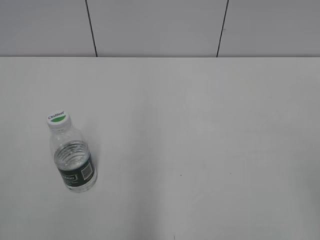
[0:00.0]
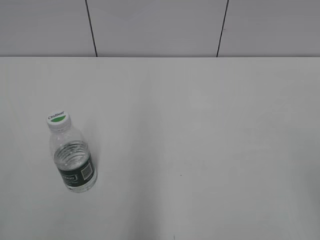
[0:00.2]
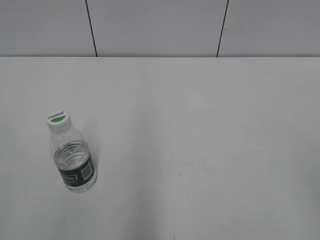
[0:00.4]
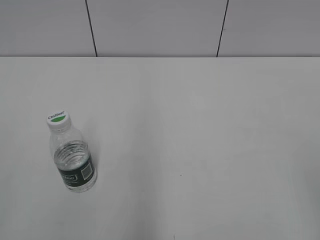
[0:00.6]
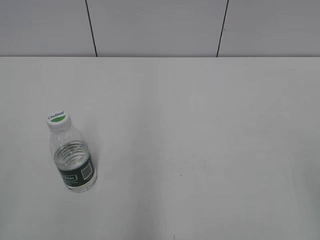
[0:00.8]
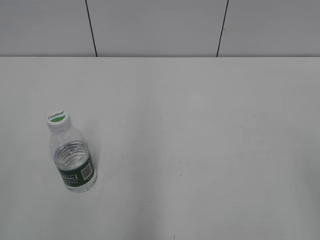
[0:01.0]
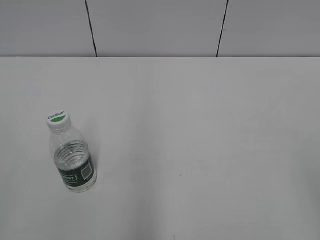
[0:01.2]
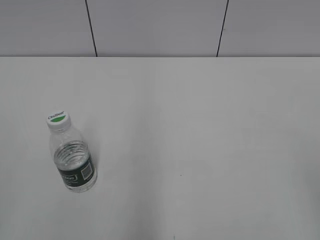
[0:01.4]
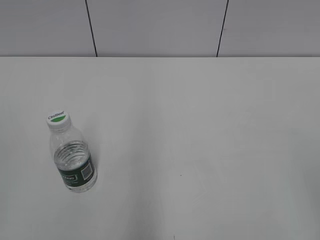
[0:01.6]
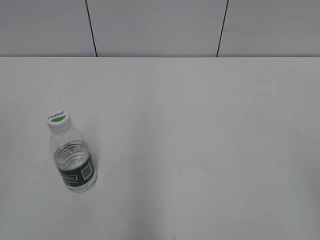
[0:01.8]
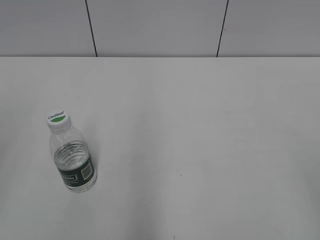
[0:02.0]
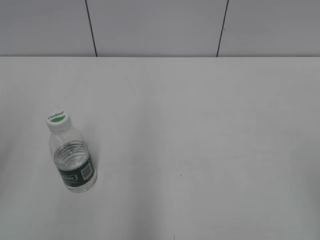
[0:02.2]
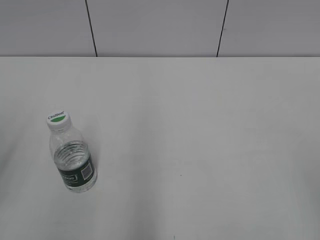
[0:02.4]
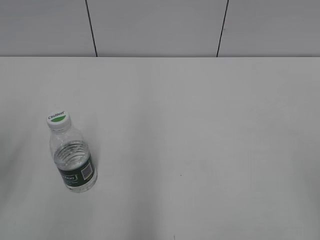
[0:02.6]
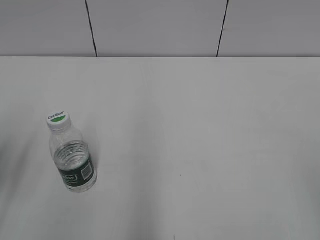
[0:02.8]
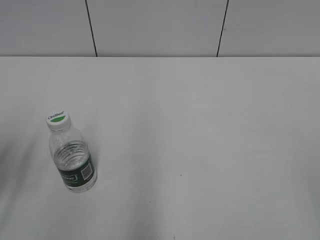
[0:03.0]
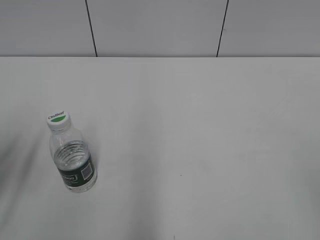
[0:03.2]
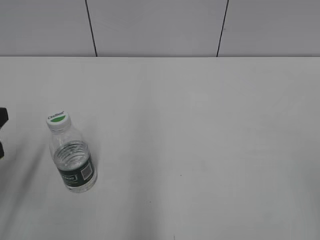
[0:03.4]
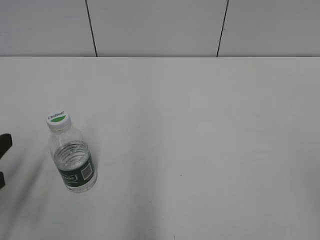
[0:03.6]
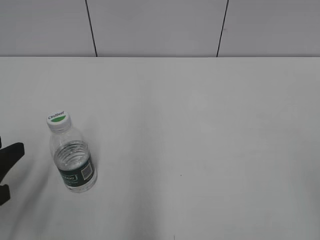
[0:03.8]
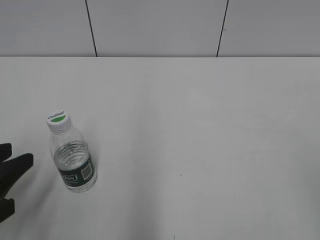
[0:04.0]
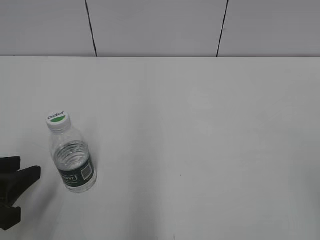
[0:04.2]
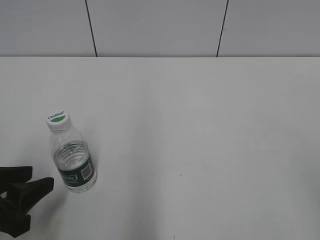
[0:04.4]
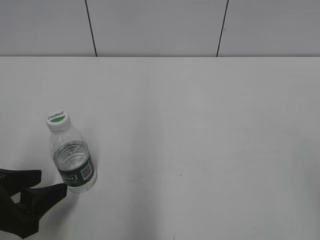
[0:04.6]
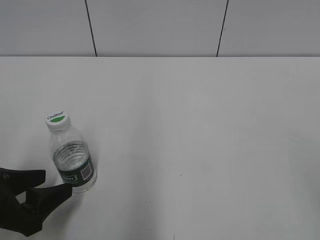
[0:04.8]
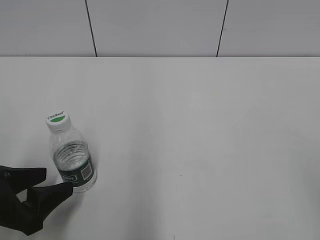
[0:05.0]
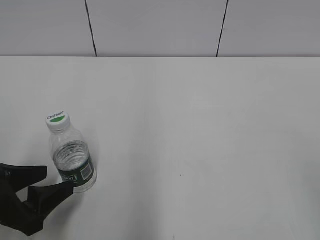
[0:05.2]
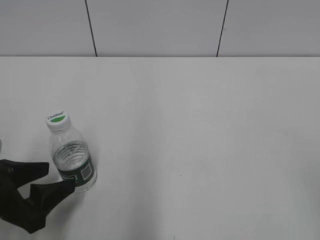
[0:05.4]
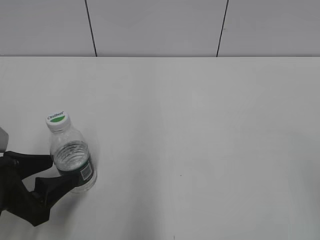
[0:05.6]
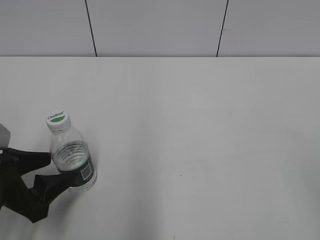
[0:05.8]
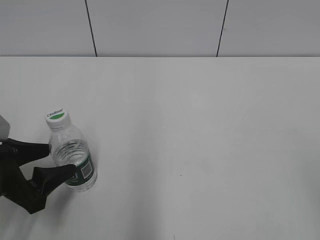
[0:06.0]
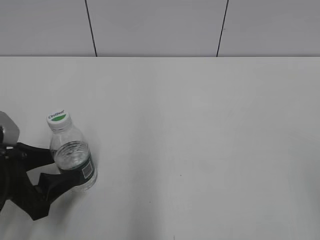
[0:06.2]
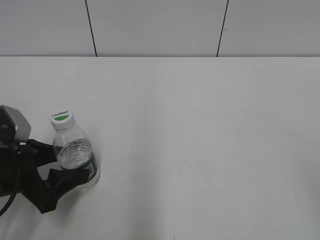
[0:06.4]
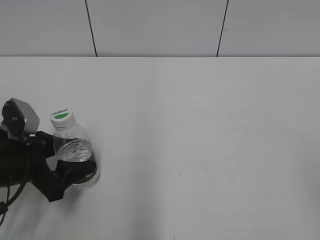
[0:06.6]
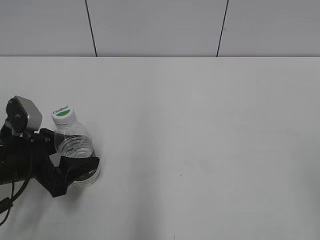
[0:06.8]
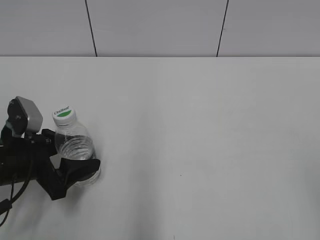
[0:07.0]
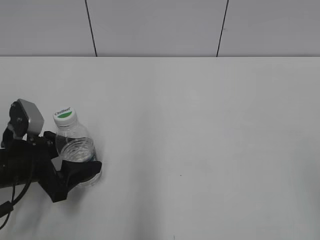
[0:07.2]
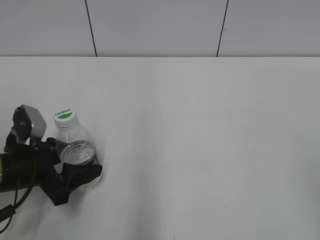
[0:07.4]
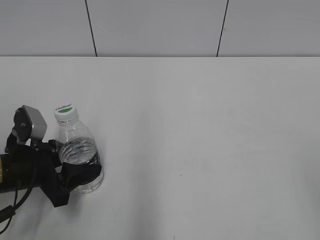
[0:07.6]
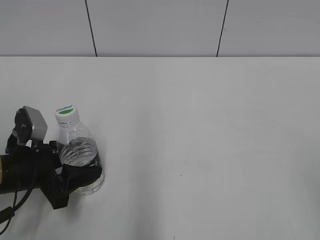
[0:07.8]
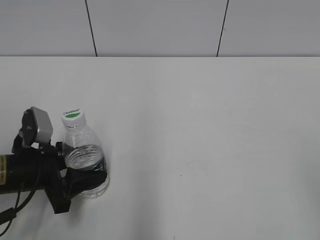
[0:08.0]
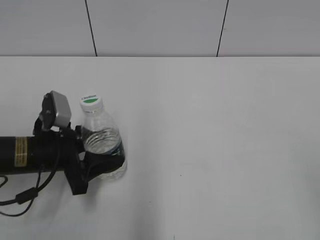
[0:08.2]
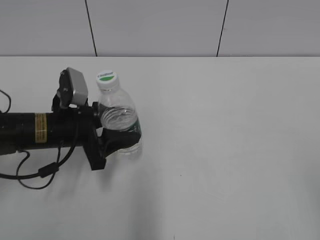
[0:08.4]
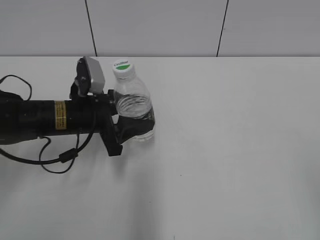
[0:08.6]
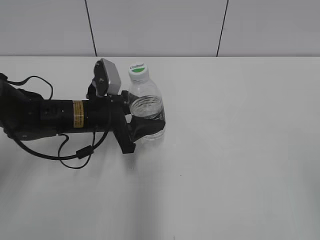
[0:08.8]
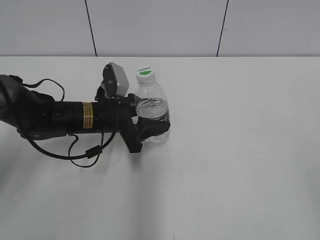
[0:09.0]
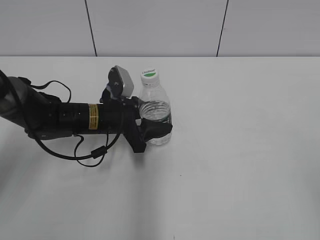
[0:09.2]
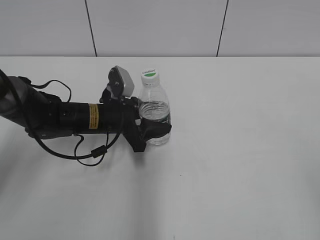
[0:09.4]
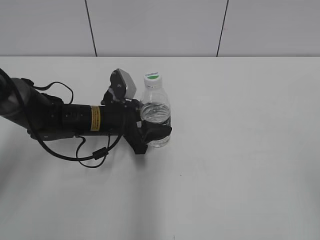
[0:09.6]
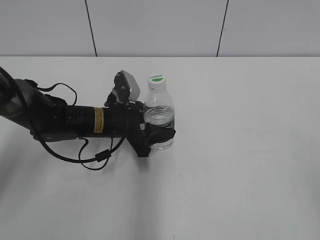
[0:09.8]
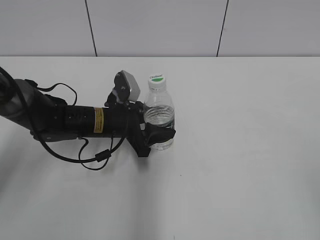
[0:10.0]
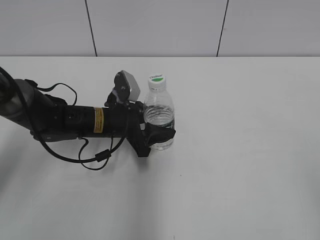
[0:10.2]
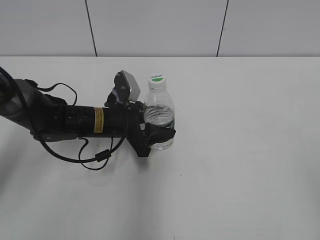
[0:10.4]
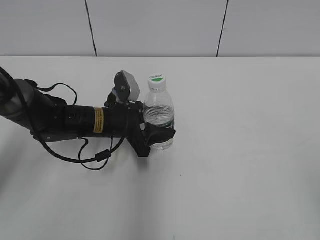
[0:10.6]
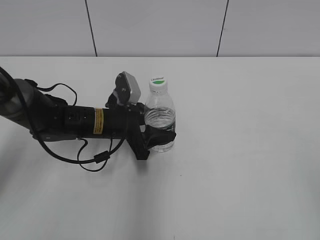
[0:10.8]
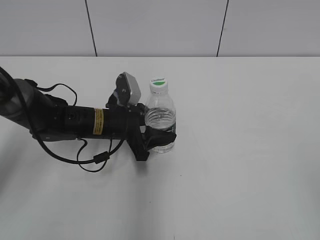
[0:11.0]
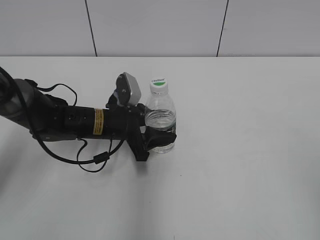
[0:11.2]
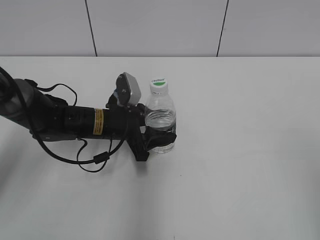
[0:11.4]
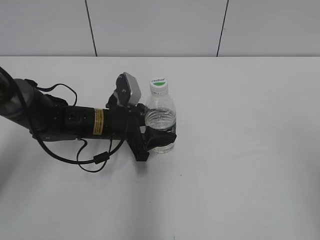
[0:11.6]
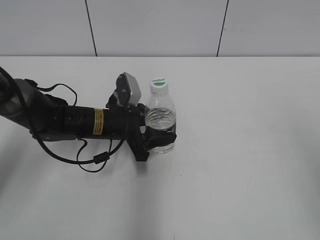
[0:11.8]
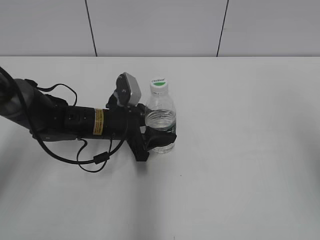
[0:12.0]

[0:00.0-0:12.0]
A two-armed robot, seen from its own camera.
Step, 0:00.0 to 0:07.8: Grasp the bottle and move it to the center of the table with the left gripper.
Step, 0:08.0 to 0:09.8: Lift the bottle and move it to the center of the table with the left gripper.
0:01.6 to 0:03.0: The left gripper moves forward and downward, about 20 cm.
0:03.0 to 0:04.4: The left gripper heads downward, covering about 5 cm.
0:04.4 to 0:06.0: The left gripper opens.
0:06.0 to 0:07.6: The left gripper moves roughly 5 cm, and closes its fingers.
0:07.6 to 0:09.0: The left gripper goes some 15 cm forward and to the right.
0:09.0 to 0:10.4: The grippers stay close to where they were, moving slightly.
0:10.4 to 0:12.0: The right gripper shifts approximately 15 cm forward and upward.

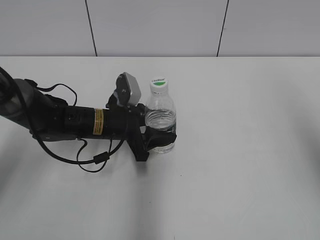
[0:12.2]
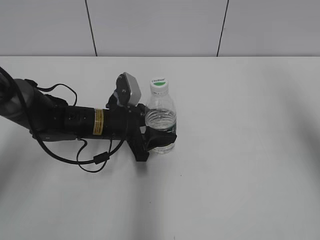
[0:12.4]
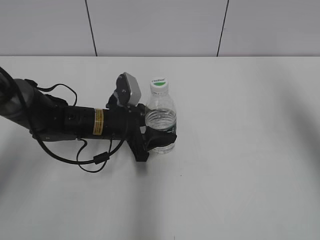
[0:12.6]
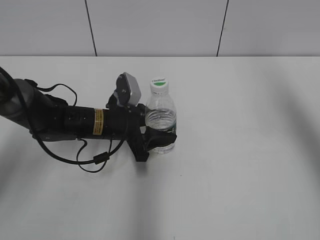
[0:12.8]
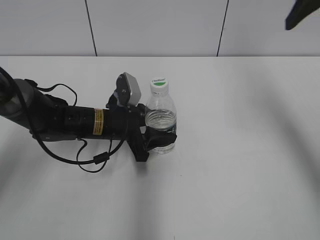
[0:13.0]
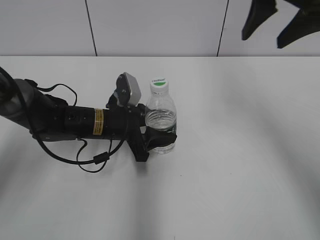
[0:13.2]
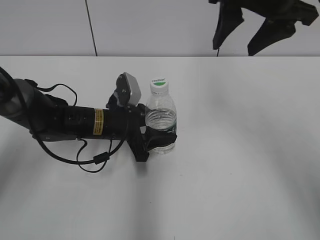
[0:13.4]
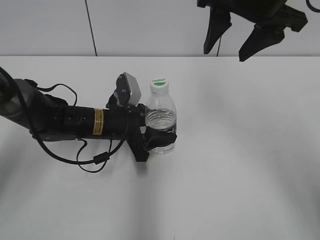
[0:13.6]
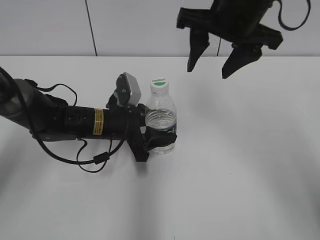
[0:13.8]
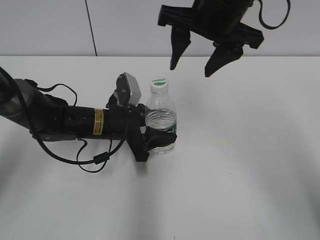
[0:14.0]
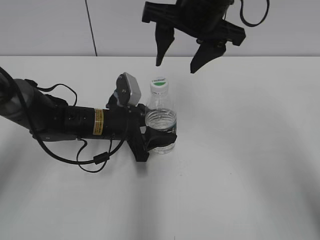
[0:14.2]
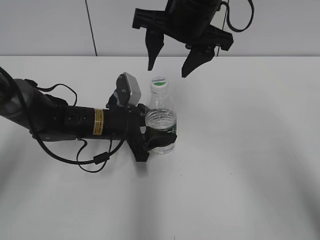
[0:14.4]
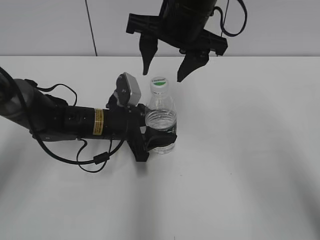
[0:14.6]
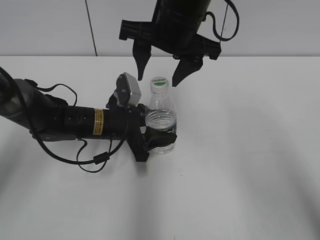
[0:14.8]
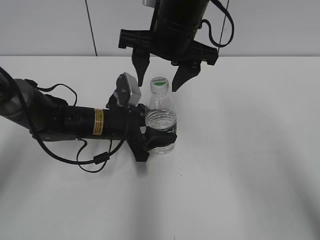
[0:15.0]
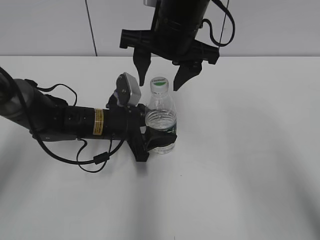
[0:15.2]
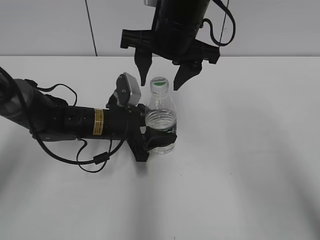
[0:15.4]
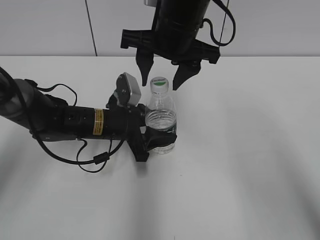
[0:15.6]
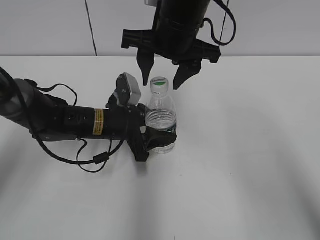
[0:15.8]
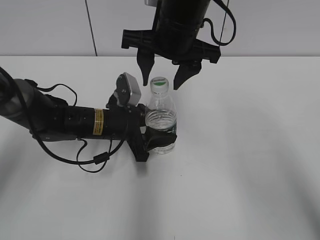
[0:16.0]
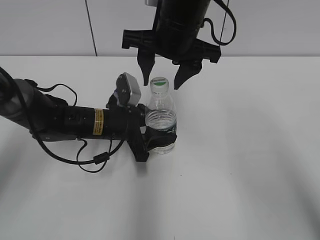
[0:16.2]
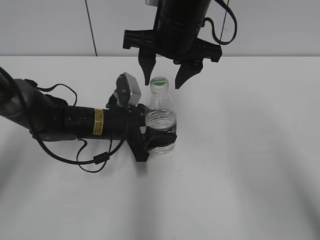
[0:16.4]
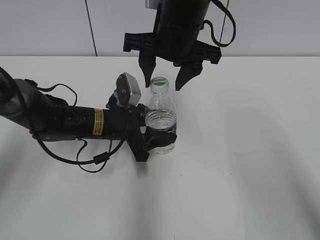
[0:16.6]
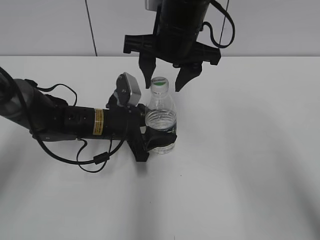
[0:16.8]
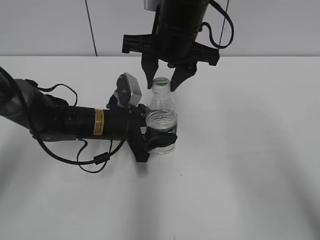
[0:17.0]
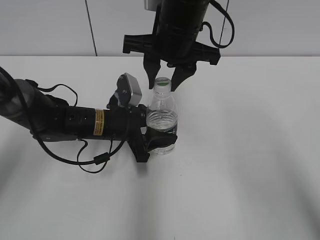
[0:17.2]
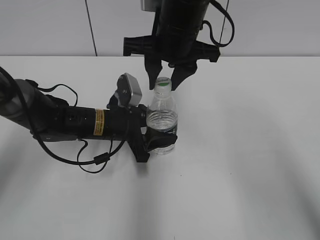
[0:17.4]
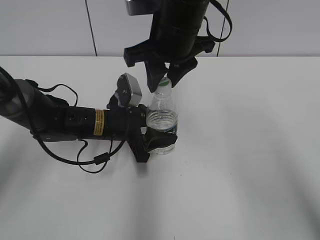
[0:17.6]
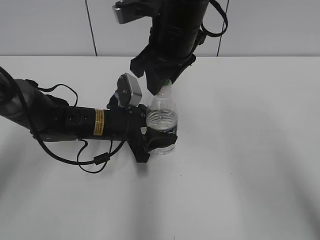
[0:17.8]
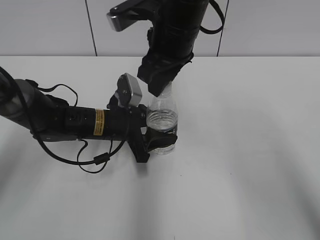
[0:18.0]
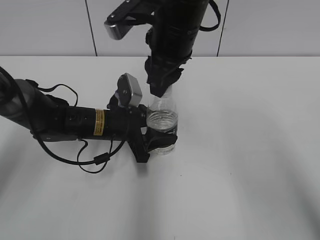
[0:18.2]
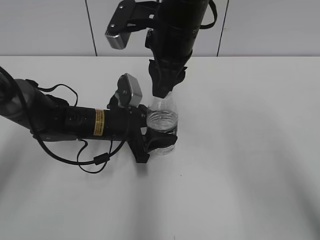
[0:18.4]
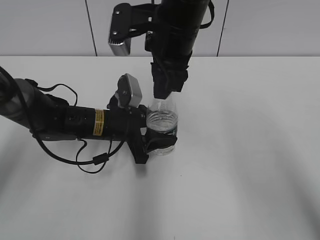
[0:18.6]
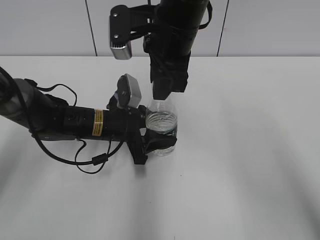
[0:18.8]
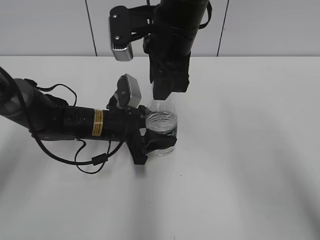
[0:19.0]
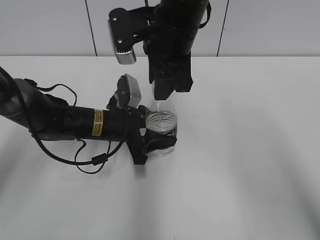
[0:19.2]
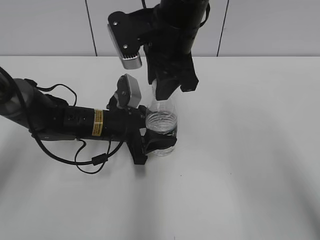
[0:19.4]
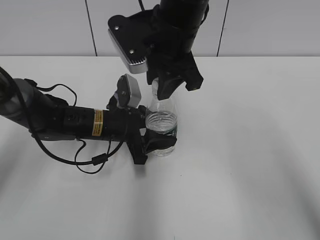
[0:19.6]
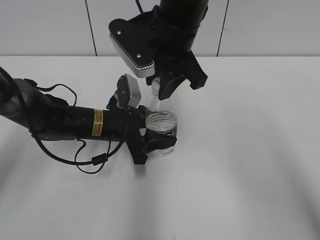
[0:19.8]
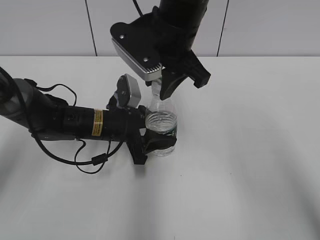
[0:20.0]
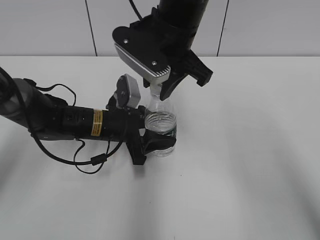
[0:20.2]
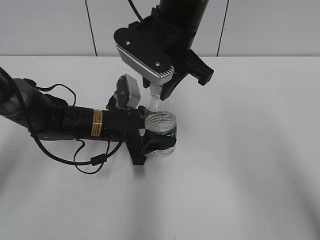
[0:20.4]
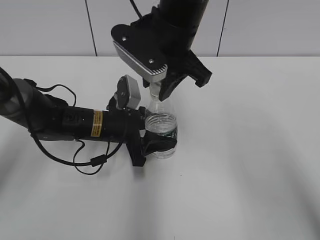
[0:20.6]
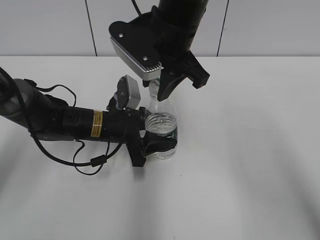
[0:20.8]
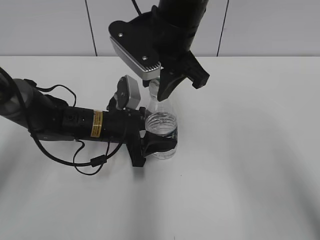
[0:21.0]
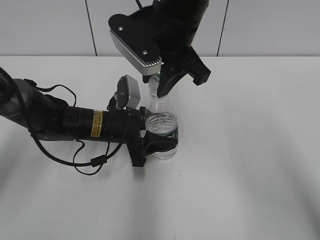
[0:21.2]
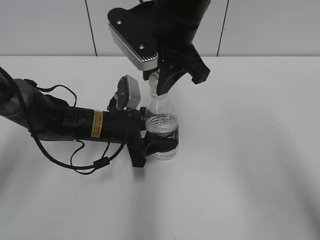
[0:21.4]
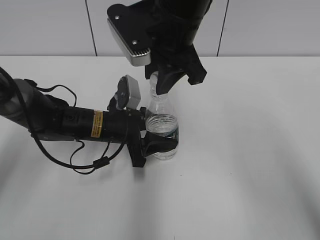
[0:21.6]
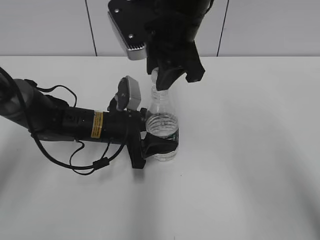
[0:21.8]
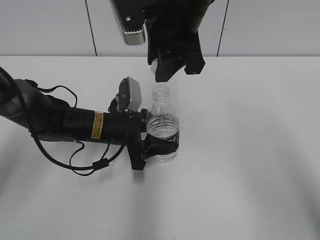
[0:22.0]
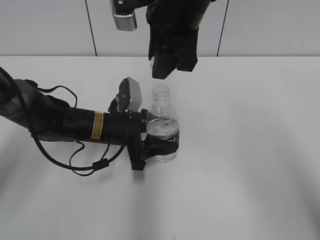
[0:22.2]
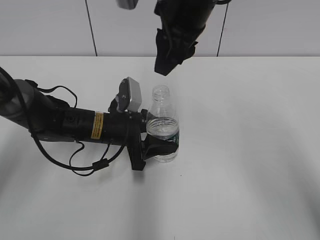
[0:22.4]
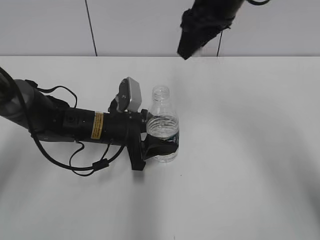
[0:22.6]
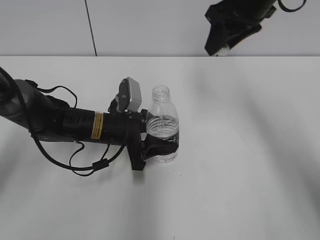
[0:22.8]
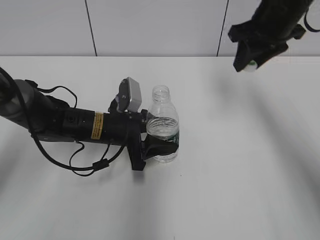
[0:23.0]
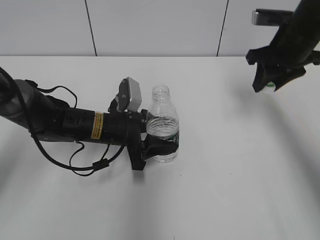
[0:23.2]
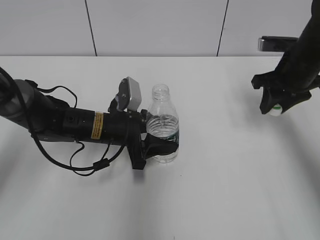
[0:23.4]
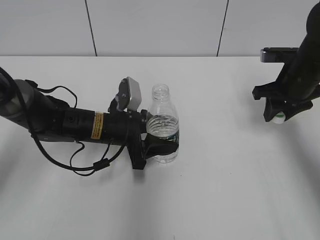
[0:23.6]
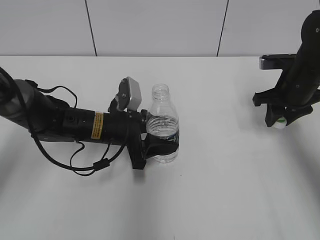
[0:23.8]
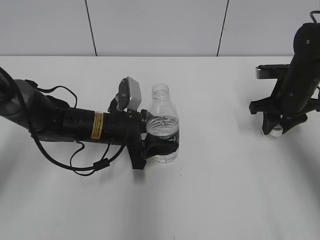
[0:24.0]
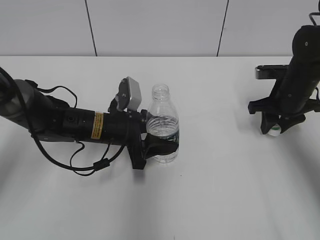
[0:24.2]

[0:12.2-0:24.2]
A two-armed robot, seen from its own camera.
Step, 0:12.2 to 0:22.0: Unscrew the bottle cap with the right gripper while holding the bottle with the left gripper.
0:12.2 to 0:13.8: The right gripper shifts roughly 25 cm to the left, forward and downward.
0:13.8 to 0:15.2: The right gripper goes roughly 10 cm to the left.
0:15.2 to 0:16.6: Both grippers stay put.
0:16.6 to 0:18.2: The right gripper closes its fingers.
0:19.8 to 0:21.2: The grippers stay close to where they were, moving slightly.
0:21.2 to 0:22.6: The right gripper shifts about 5 cm to the right.
0:22.6 to 0:24.2: The right gripper moves downward and to the right, some 25 cm.
